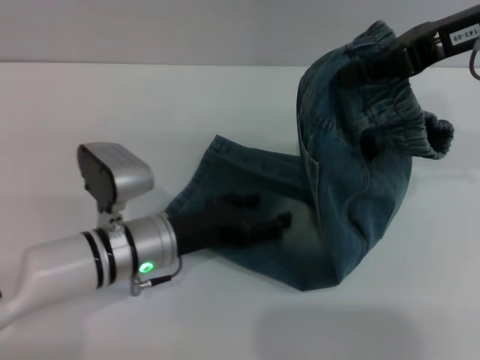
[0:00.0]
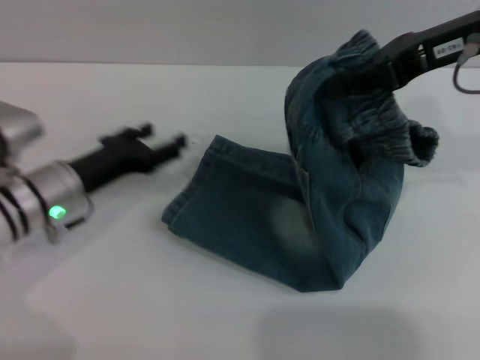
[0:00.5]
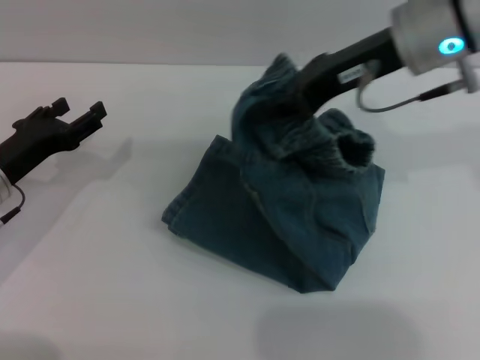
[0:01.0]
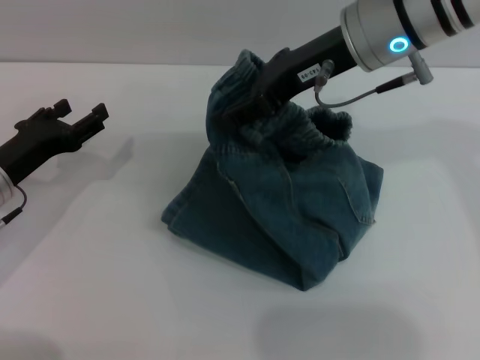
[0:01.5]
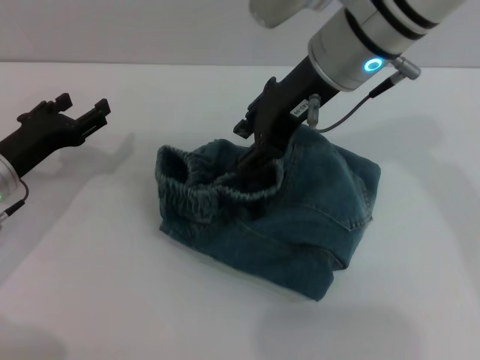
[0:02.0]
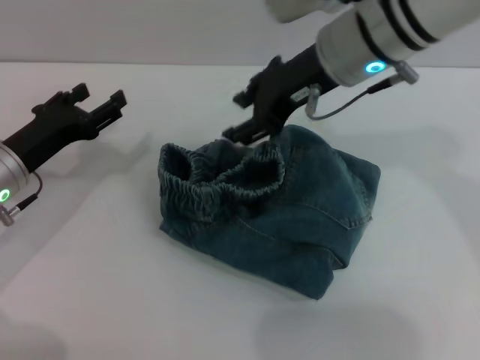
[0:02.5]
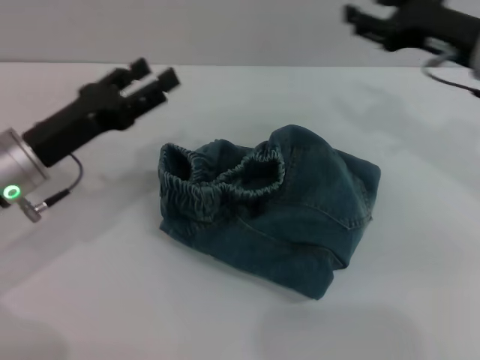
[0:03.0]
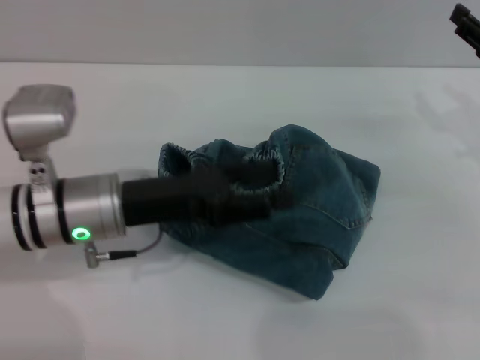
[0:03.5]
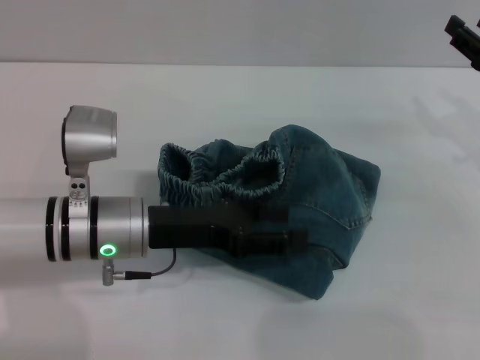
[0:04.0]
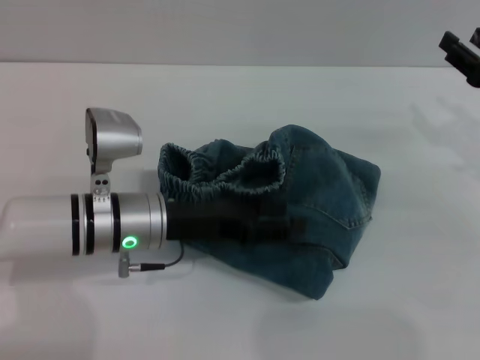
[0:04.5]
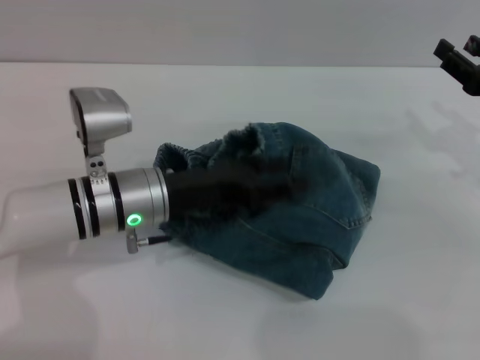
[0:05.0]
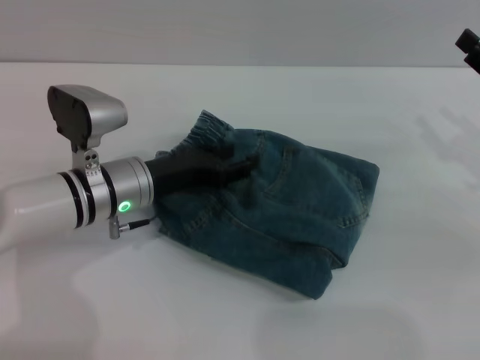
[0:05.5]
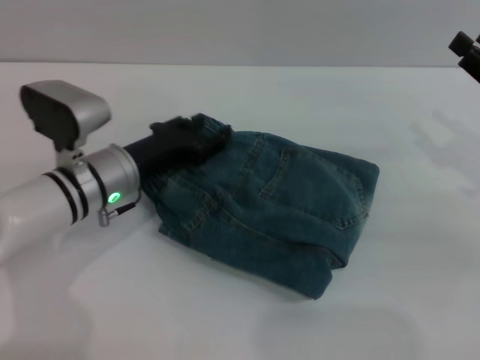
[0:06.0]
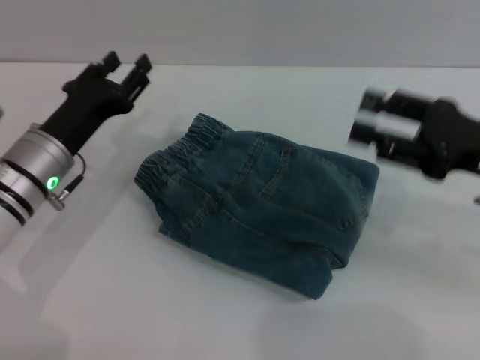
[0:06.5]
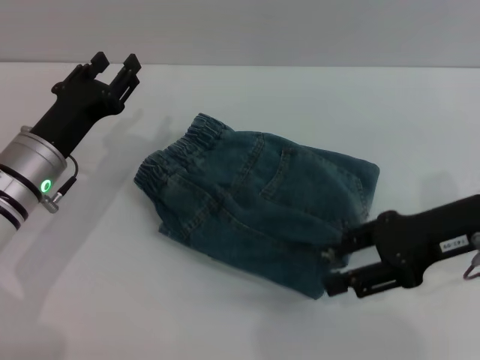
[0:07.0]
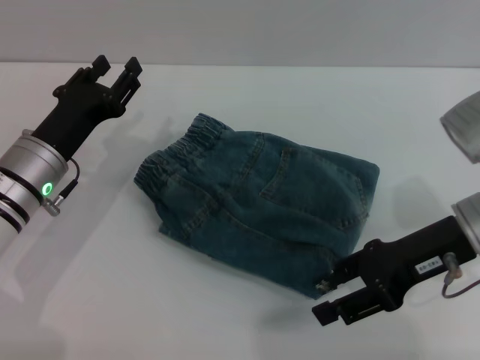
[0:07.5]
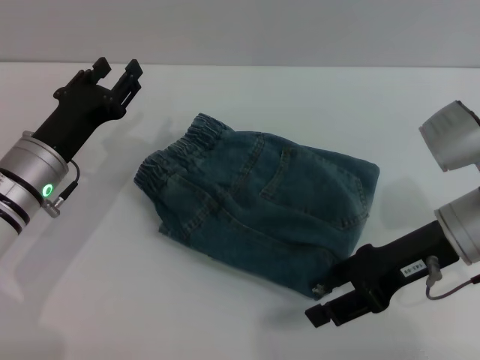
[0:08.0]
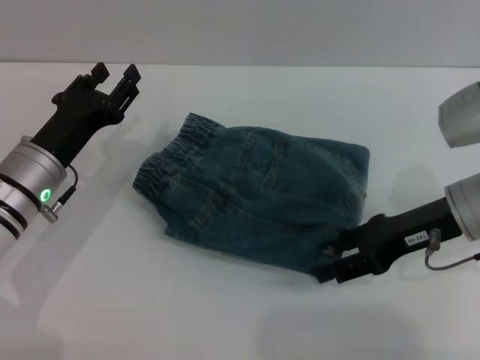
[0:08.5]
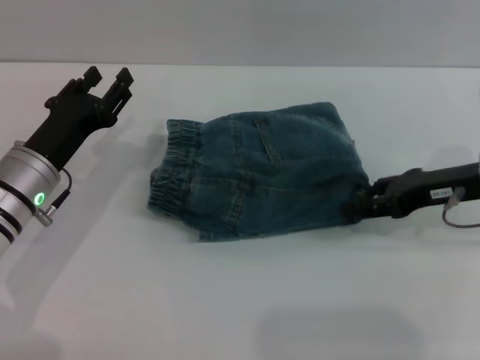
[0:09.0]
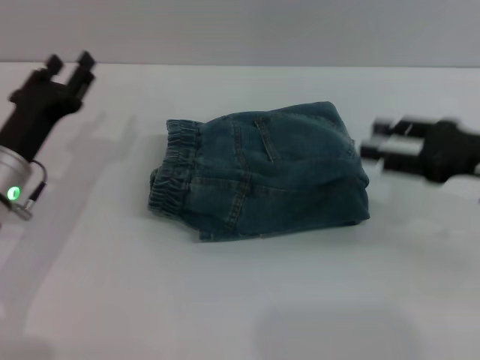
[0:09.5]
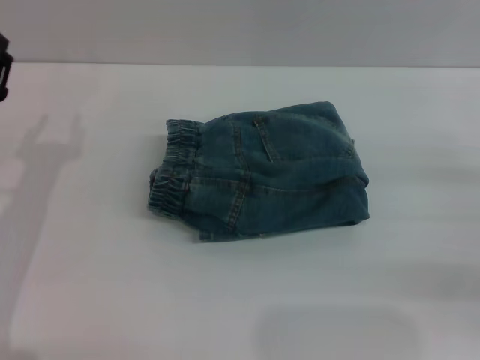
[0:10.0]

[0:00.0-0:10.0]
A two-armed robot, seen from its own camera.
Step, 0:02.0 to 0:09.0: Place the folded trousers onto the center area with the right grippers.
0:00.0 to 0:02.0: The grippers both shift to the left by some 15 cm. The right gripper opens its fingers.
0:02.0 to 0:04.0: The right gripper heads to the right and downward, covering approximately 25 cm, while the left gripper goes about 15 cm to the right.
0:04.0 to 0:06.0: The left gripper heads forward, covering roughly 5 cm.
0:06.0 to 0:08.0: The left gripper is displaced to the left by about 5 cm. The right gripper heads to the left, covering some 10 cm.
0:08.0 to 0:10.0: The right gripper moves to the right, about 15 cm; the left gripper travels to the left by roughly 5 cm.

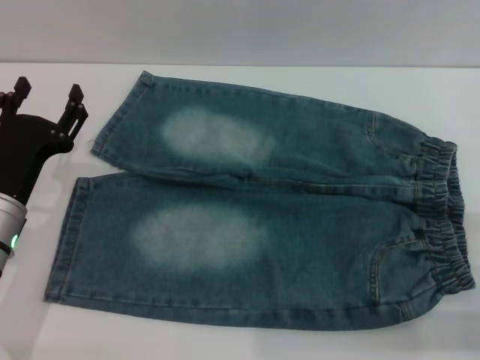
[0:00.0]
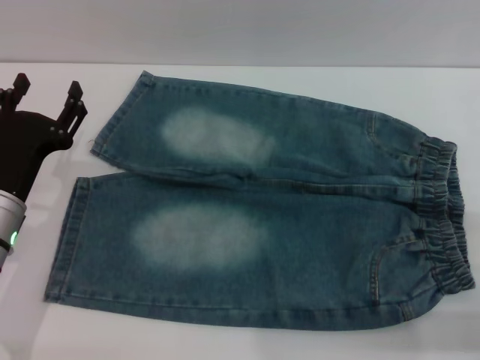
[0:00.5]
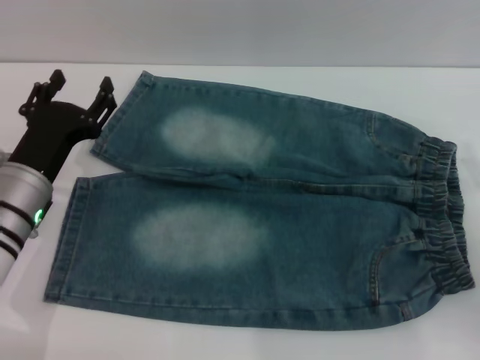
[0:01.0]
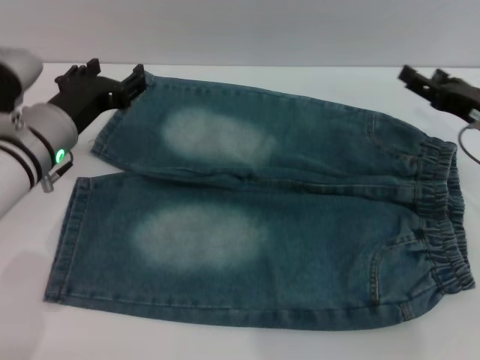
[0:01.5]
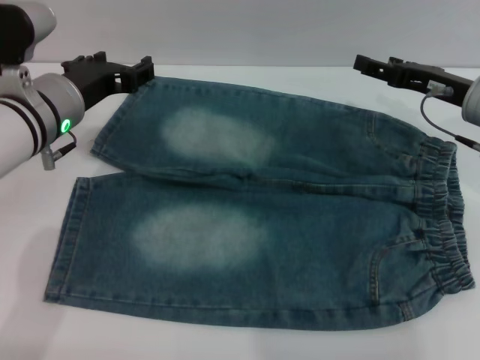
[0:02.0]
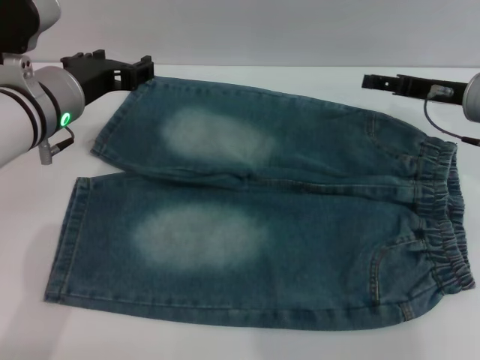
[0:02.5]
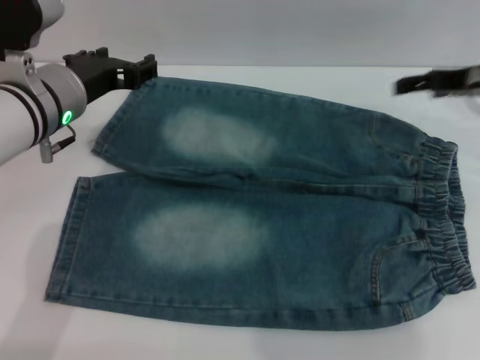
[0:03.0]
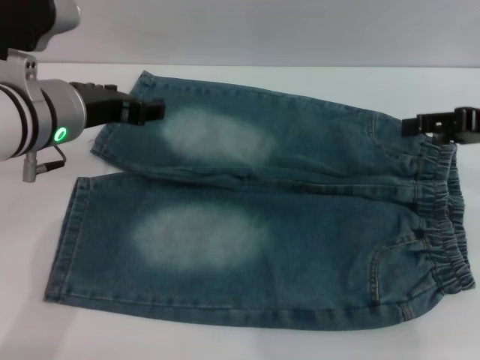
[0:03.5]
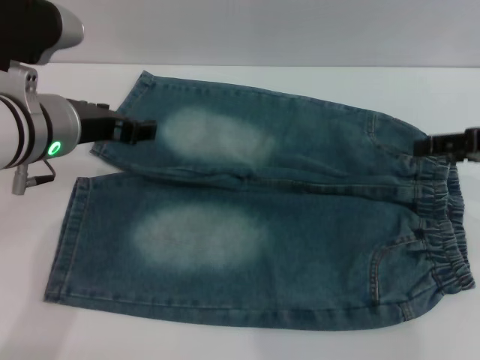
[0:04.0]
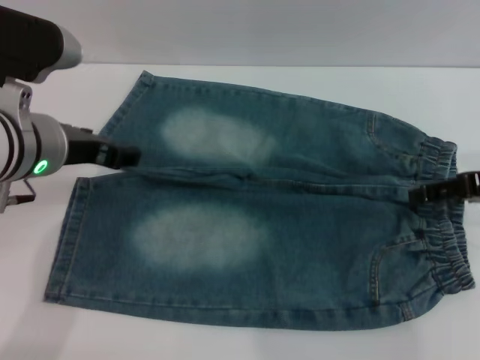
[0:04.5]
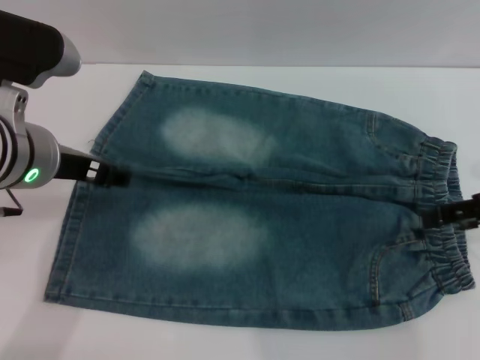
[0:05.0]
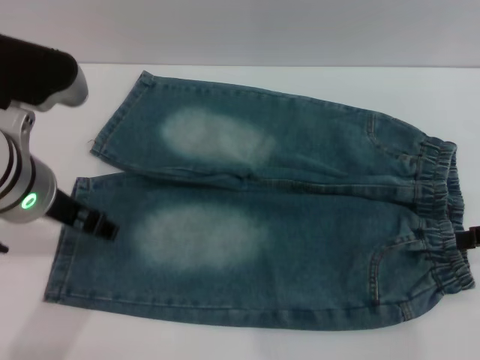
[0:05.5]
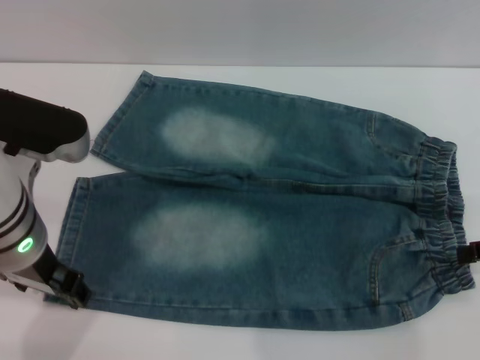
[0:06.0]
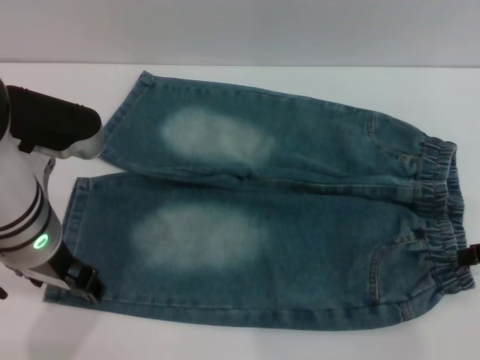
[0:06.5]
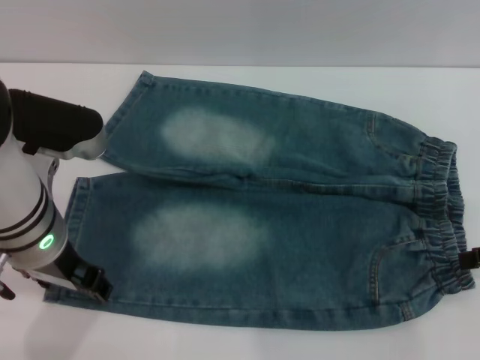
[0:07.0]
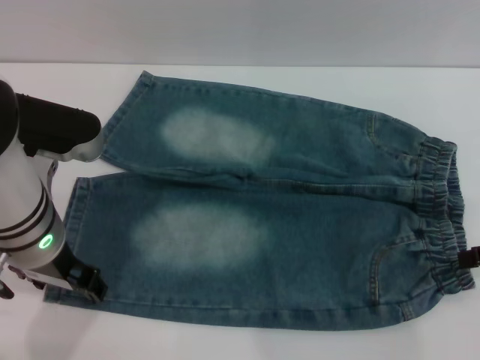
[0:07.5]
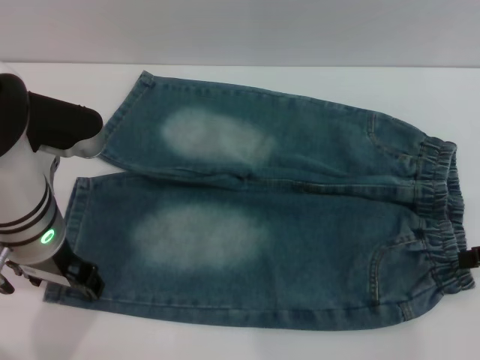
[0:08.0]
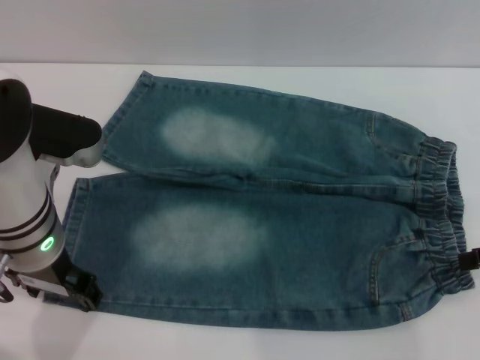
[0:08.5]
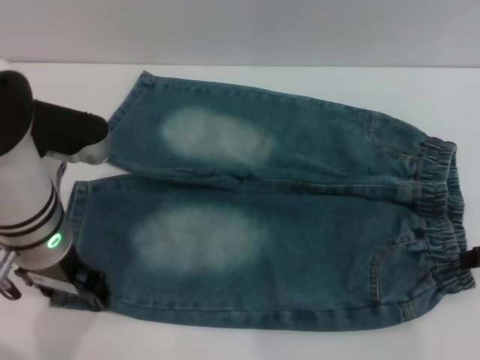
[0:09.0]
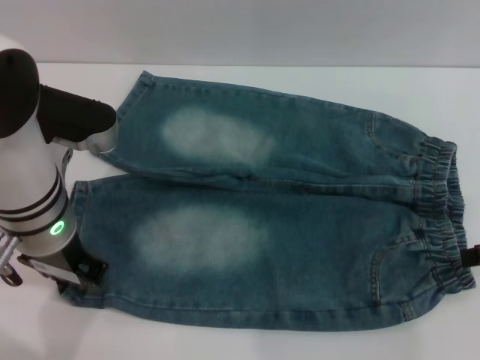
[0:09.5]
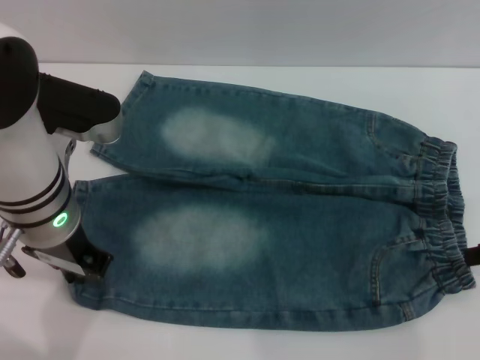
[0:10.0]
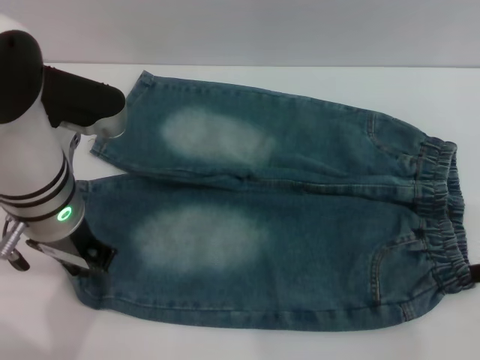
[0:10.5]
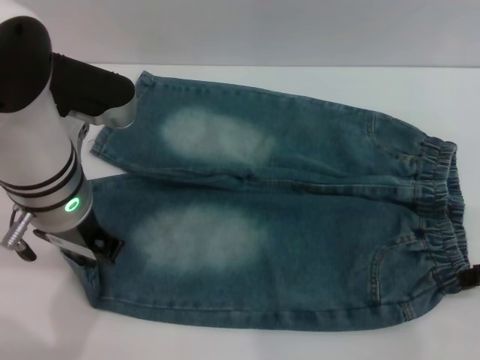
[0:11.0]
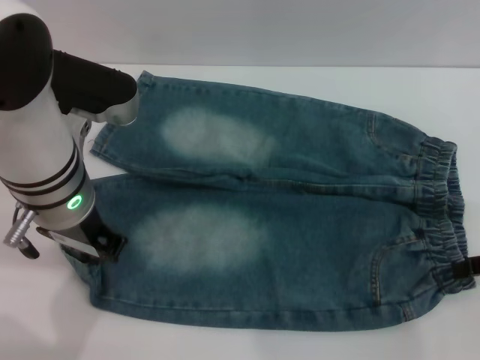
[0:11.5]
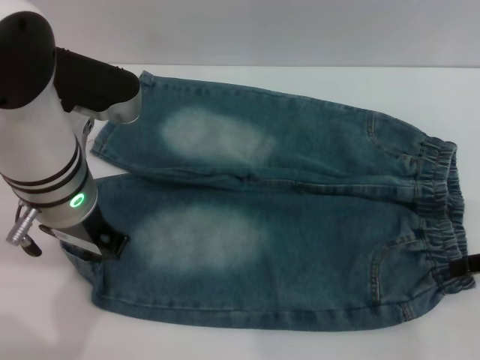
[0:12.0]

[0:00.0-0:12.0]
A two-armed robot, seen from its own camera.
0:00.0 to 0:02.0: The right gripper travels forward by roughly 20 cm; the left gripper goes about 15 cm upward, forward and to the right.
0:02.0 to 0:04.0: The right gripper is displaced backward and upward by roughly 10 cm.
0:04.0 to 0:06.0: The two grippers go some 5 cm backward.
0:06.0 to 0:08.0: The grippers make only small movements.
0:08.0 to 0:10.0: The left gripper closes up.
0:10.0 to 0:12.0: The grippers move only a little.

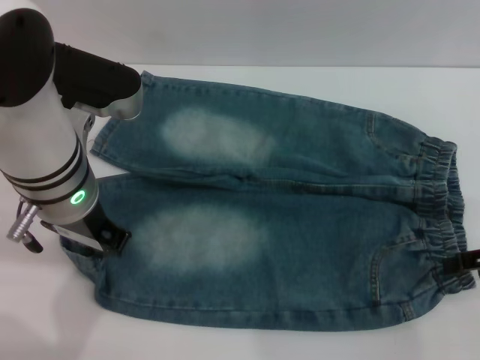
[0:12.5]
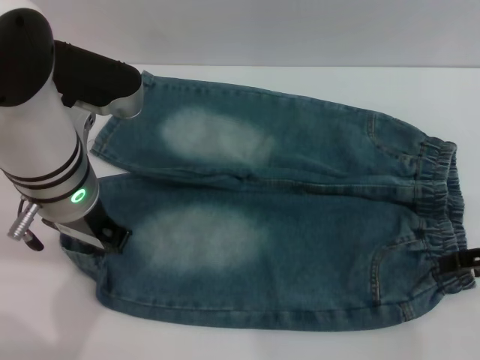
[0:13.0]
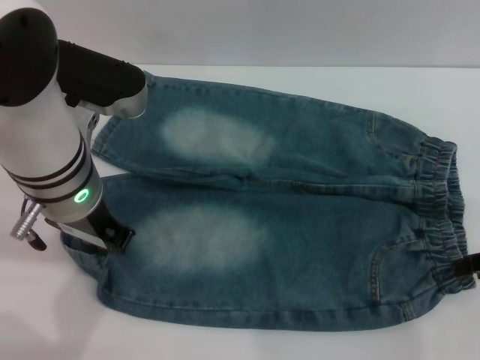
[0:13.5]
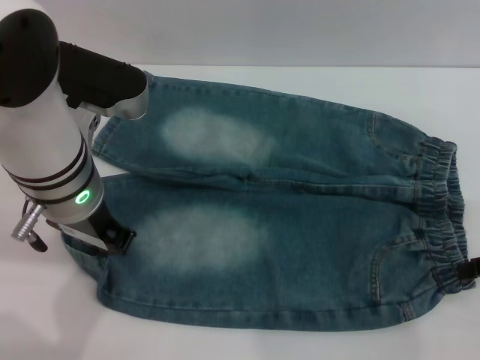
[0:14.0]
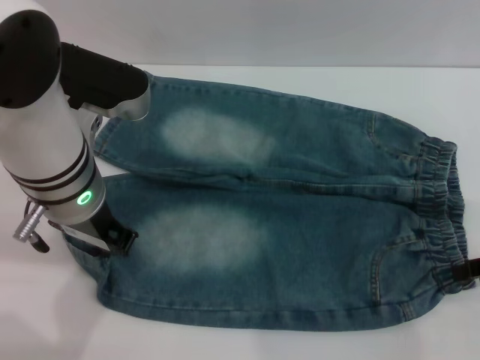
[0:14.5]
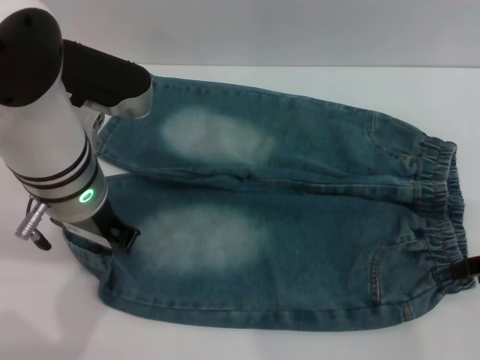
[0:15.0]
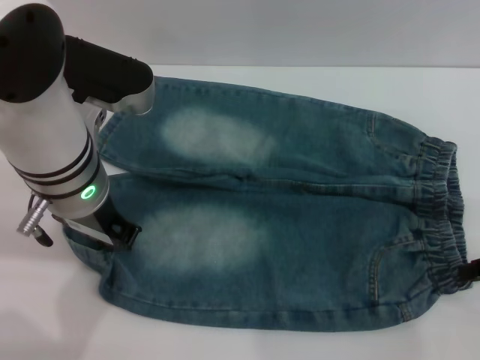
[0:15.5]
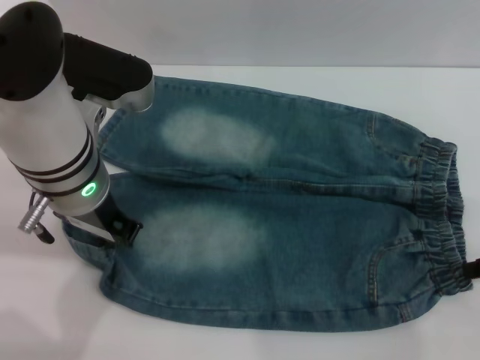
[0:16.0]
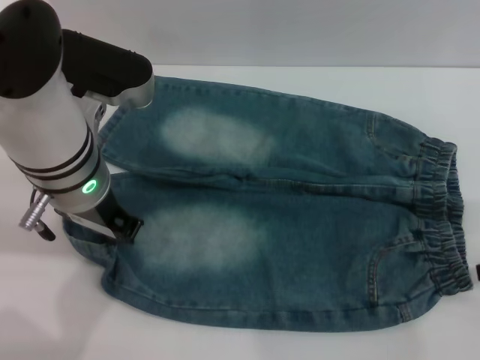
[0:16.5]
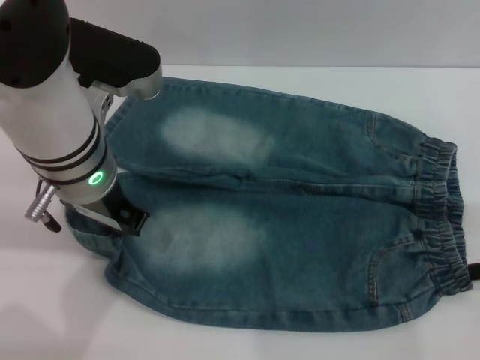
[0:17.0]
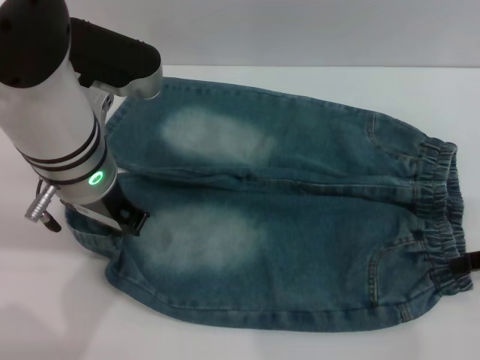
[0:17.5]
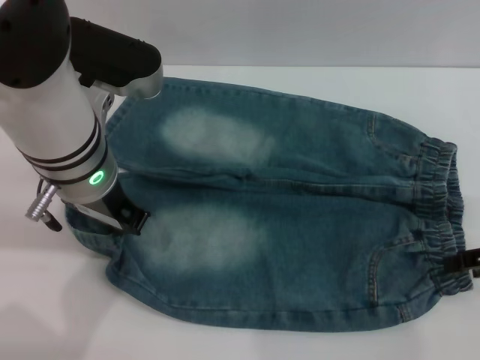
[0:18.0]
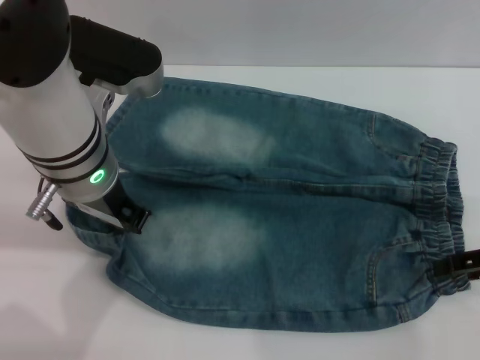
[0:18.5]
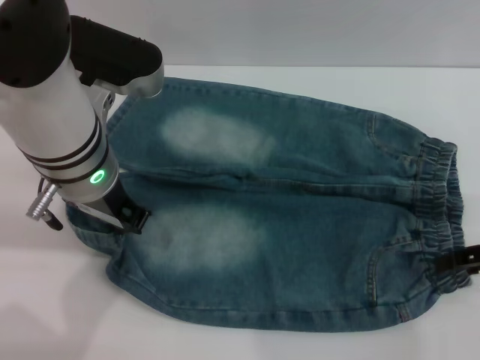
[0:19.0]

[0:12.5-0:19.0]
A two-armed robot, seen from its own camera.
0:12.5 to 0:14.5: Neither gripper changes place.
0:17.0 to 0:19.0: The grippers move only a little.
